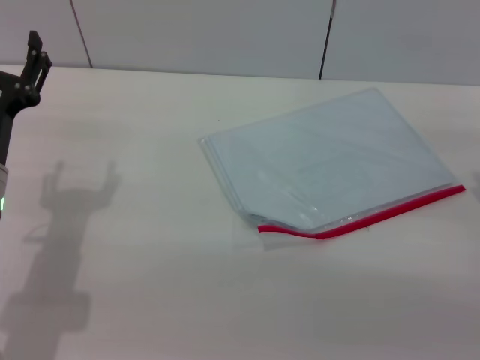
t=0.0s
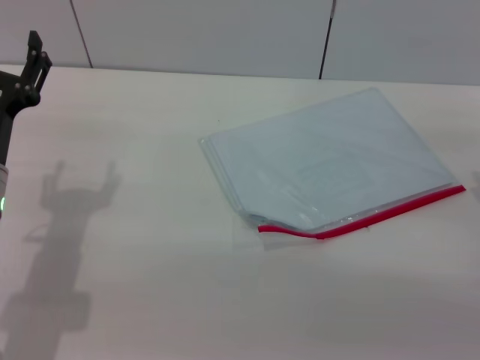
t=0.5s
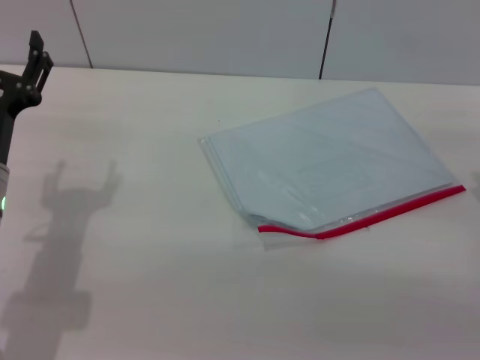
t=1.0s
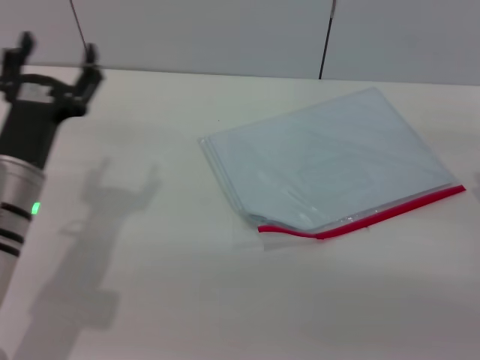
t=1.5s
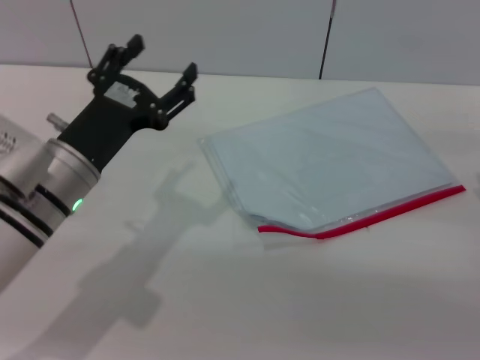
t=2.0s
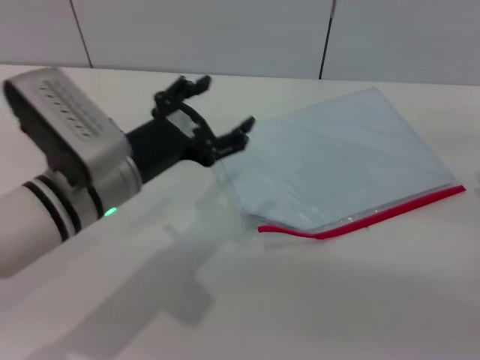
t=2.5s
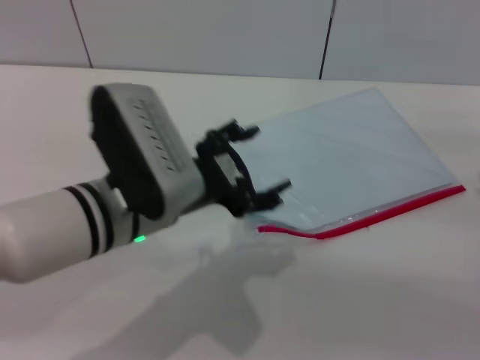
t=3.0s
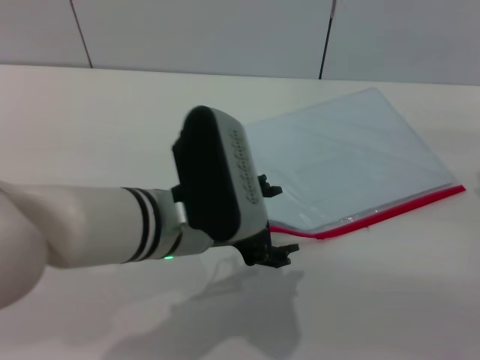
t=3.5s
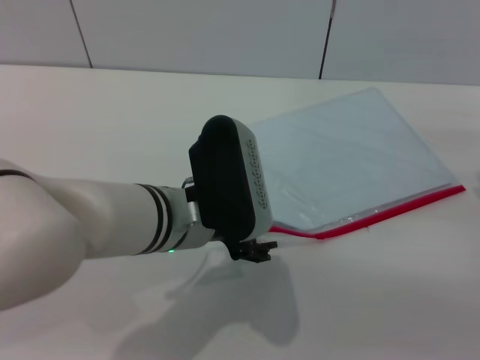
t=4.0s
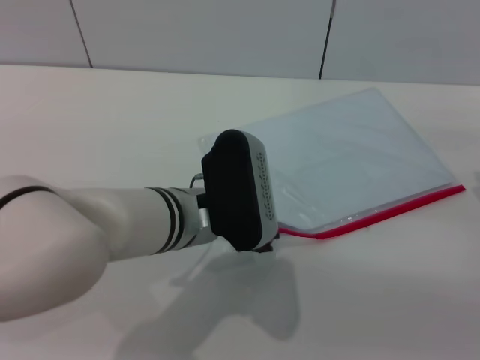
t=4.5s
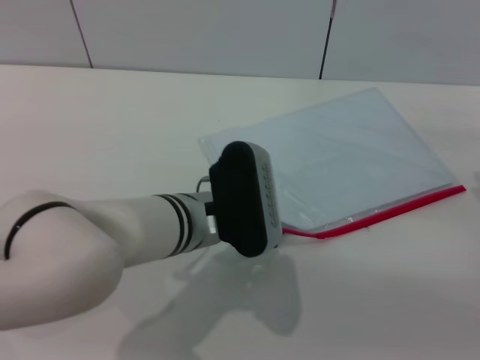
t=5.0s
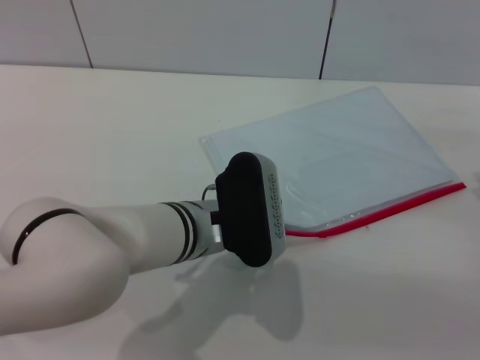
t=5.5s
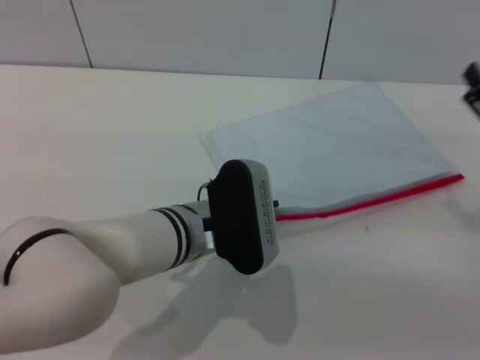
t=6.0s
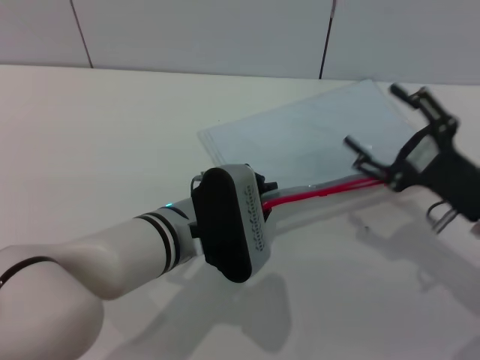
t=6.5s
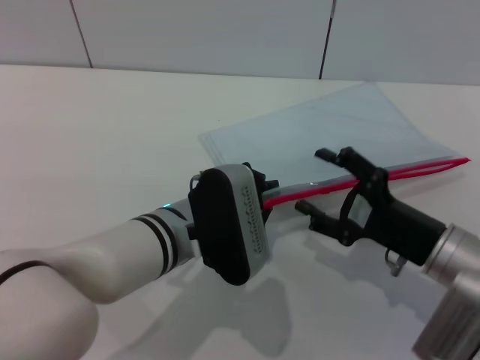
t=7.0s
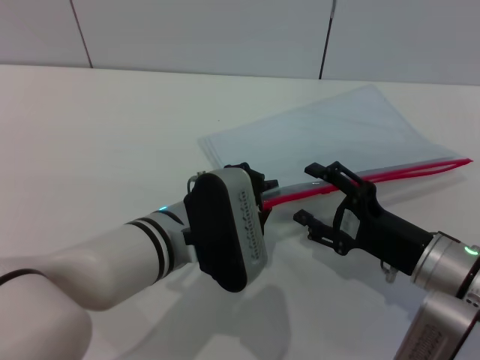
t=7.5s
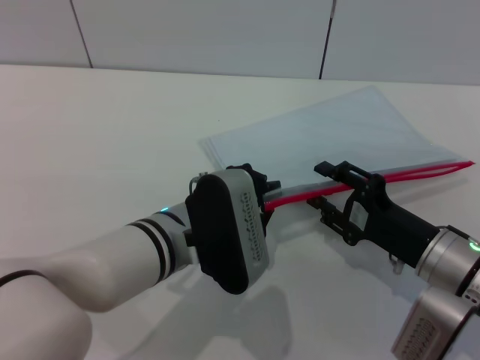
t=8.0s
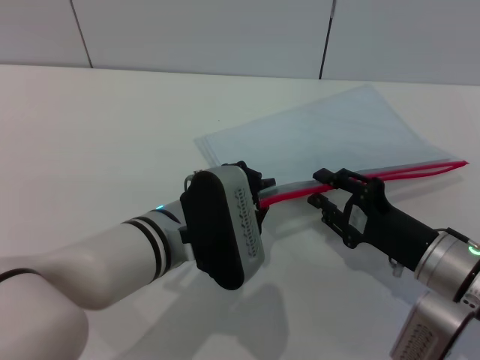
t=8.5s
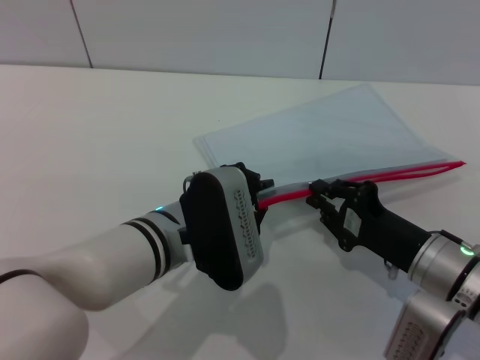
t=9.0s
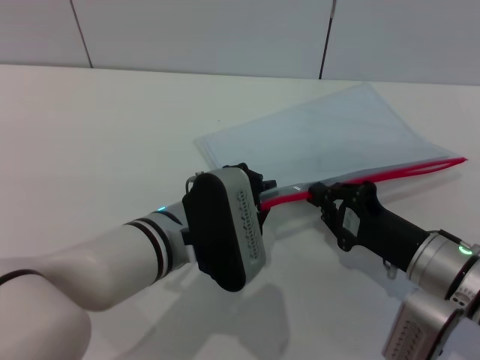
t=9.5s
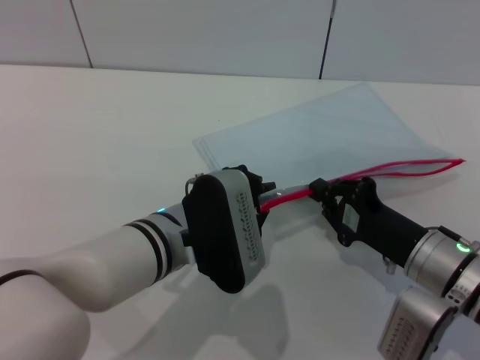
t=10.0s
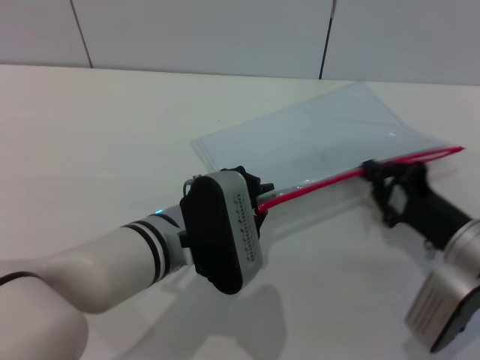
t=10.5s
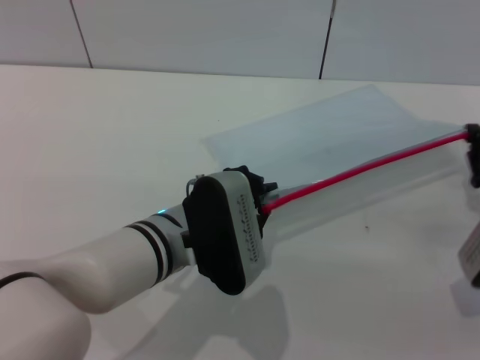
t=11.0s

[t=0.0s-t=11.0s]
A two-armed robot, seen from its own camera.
Step, t=0.0s to t=6.0s: Pick up the transparent plastic bag with the left gripper.
t=0.0s to t=2.0s: The left gripper travels to the right by about 5 cm.
t=2.0s to t=3.5s: The left gripper travels to the right by some 10 cm.
t=3.5s to t=5.5s: The left gripper goes approximately 5 cm downward.
t=5.5s to t=7.5s: The right gripper goes roughly 10 cm to the left. Meanwhile the left gripper closes up.
t=7.5s to t=9.0s: The right gripper closes.
t=9.0s to t=11.0s: The right gripper goes approximately 10 cm to the right.

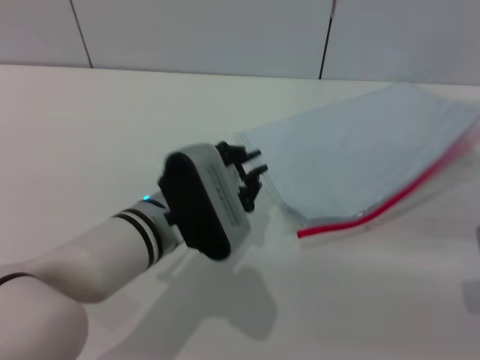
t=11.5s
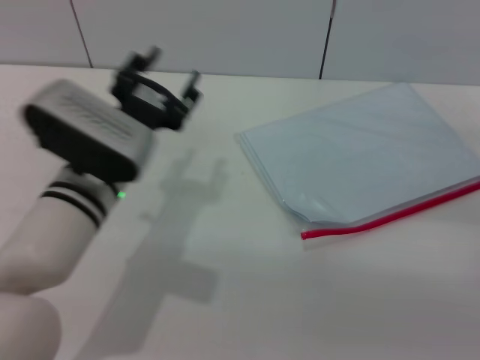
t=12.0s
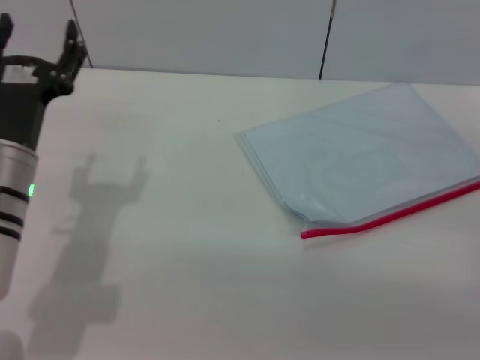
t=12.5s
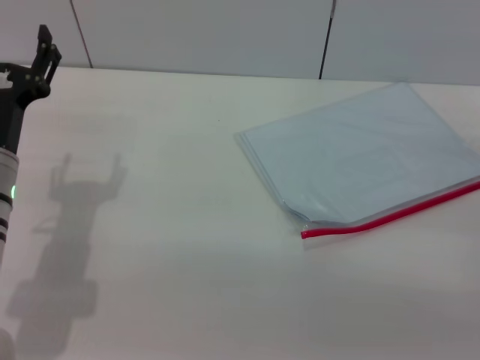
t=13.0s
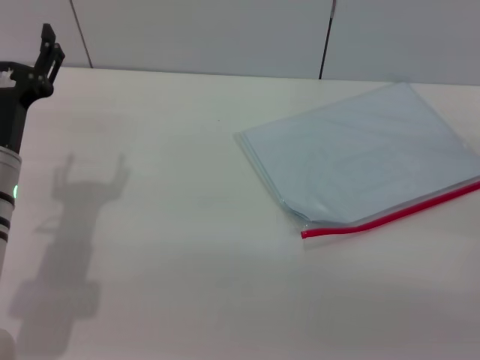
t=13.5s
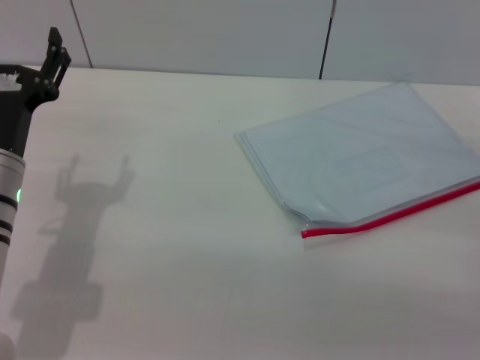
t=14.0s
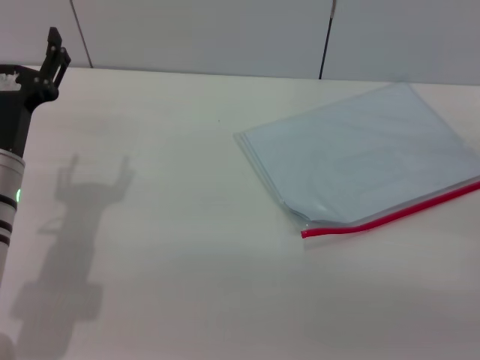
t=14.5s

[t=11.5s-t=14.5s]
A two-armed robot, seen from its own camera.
Step, t=12.0s to t=13.0s: Place the transparent plastic bag.
t=11.5s to t=13.0s: The right gripper opens. The left gripper shifts about 15 cm to the left, and opens.
t=13.0s to t=14.5s: The two grippers keep their place.

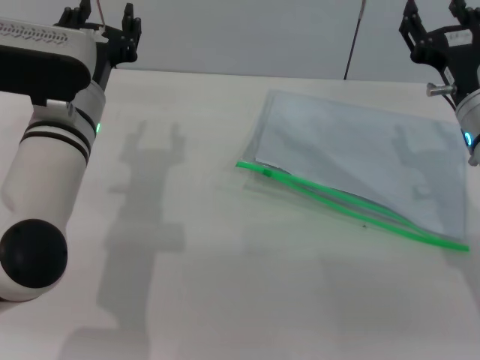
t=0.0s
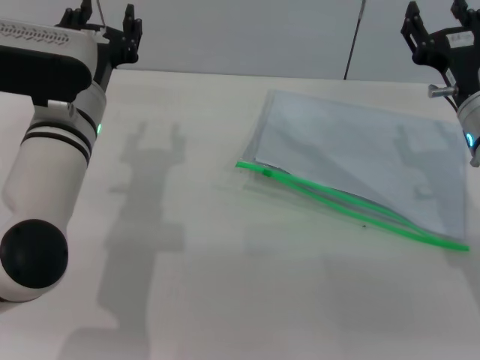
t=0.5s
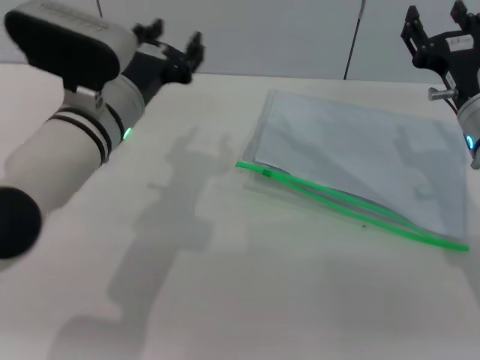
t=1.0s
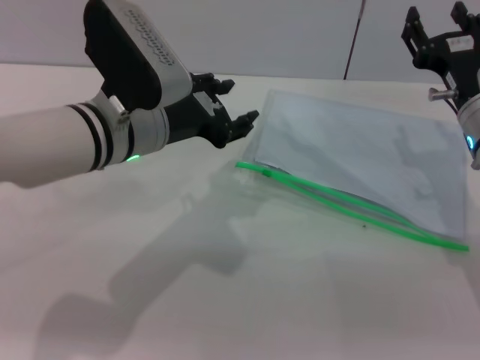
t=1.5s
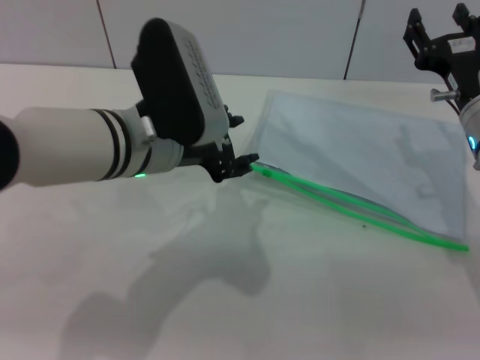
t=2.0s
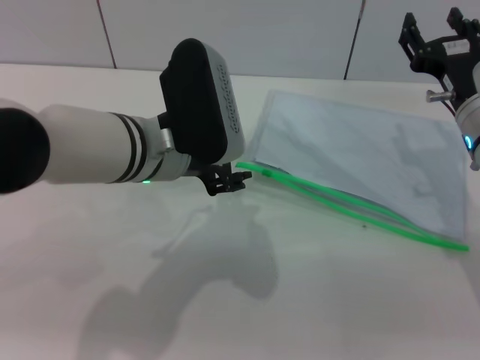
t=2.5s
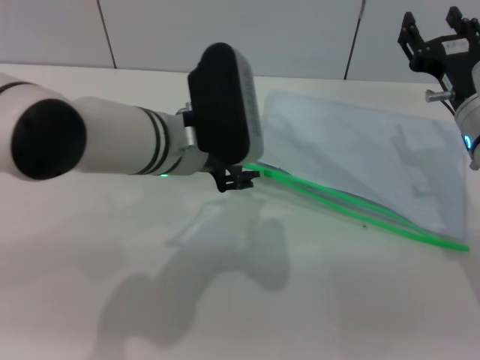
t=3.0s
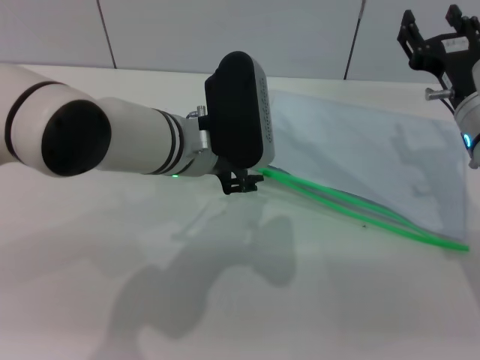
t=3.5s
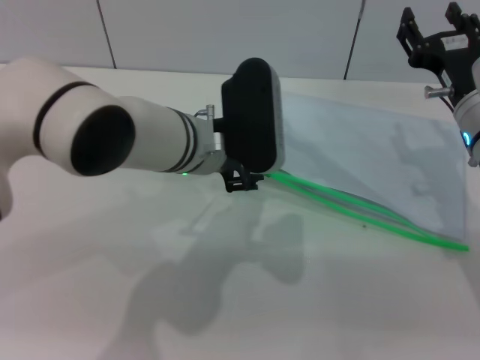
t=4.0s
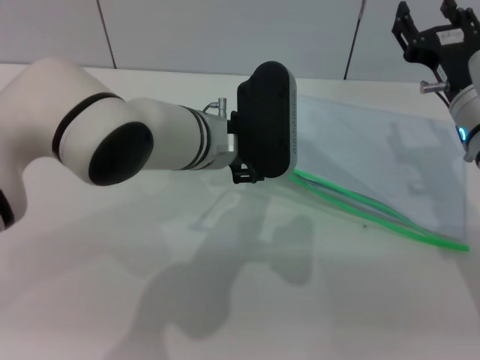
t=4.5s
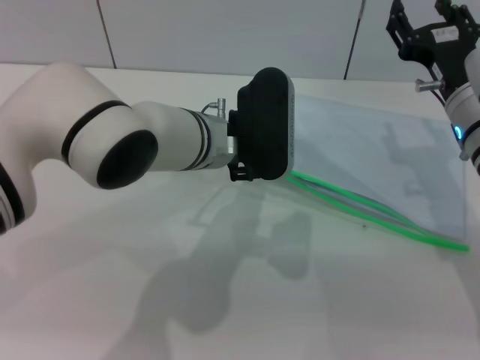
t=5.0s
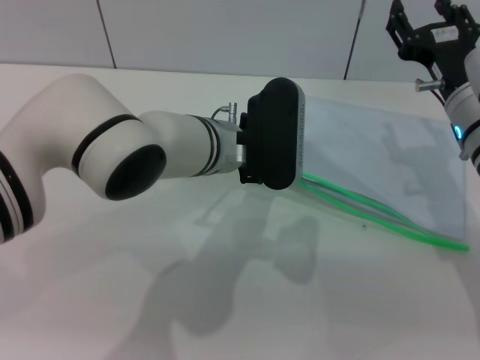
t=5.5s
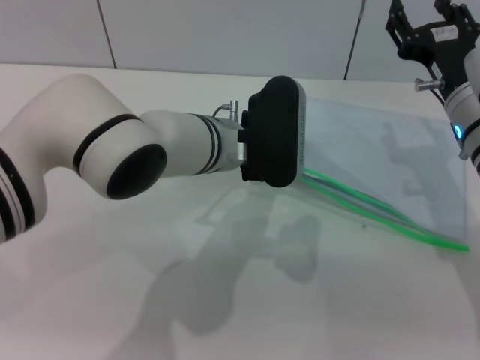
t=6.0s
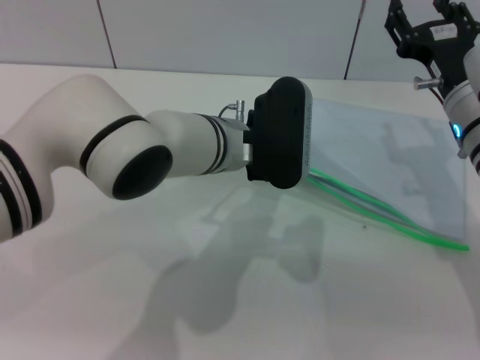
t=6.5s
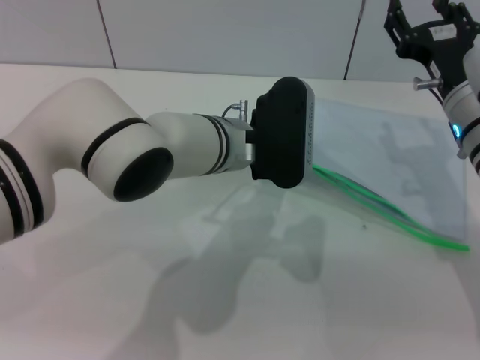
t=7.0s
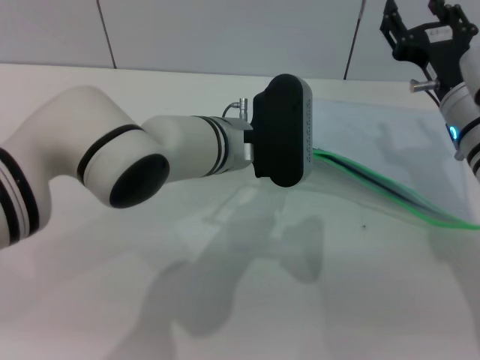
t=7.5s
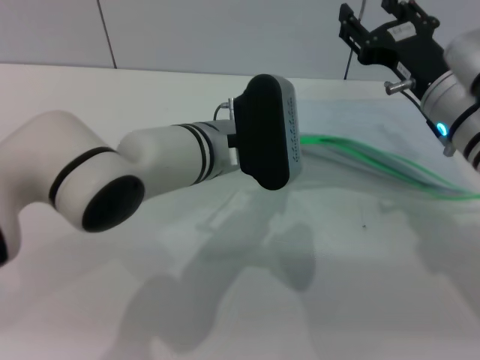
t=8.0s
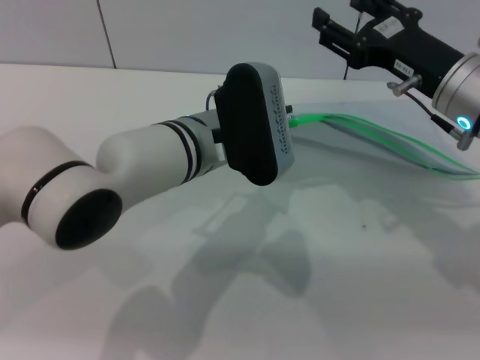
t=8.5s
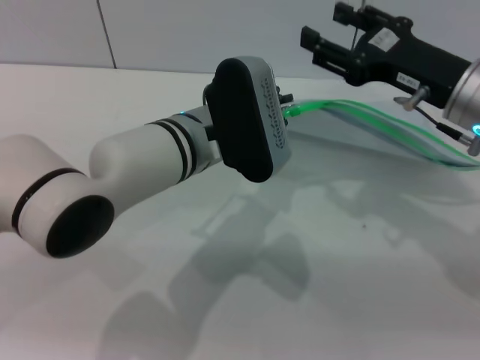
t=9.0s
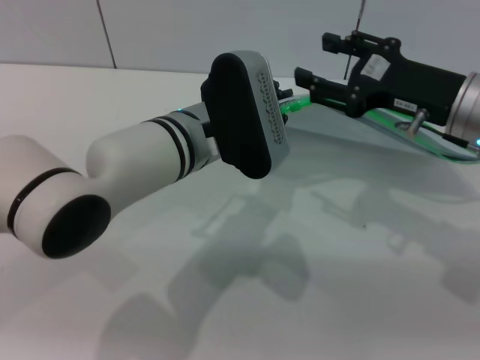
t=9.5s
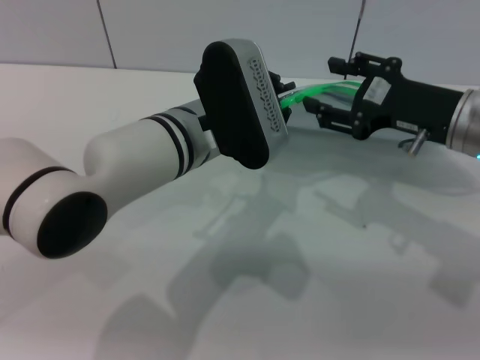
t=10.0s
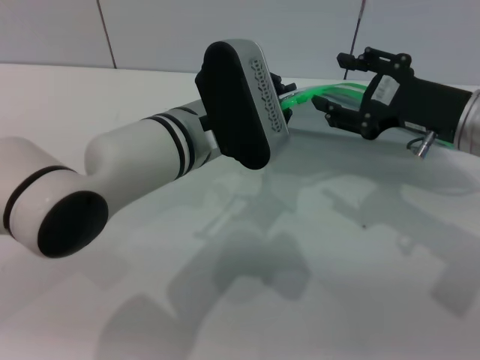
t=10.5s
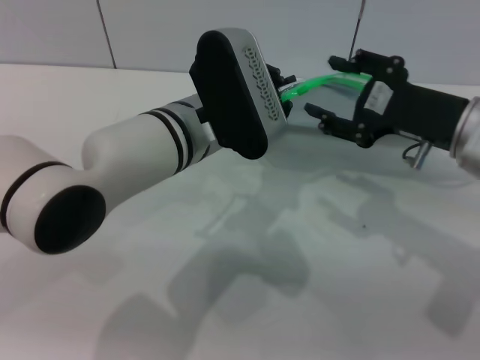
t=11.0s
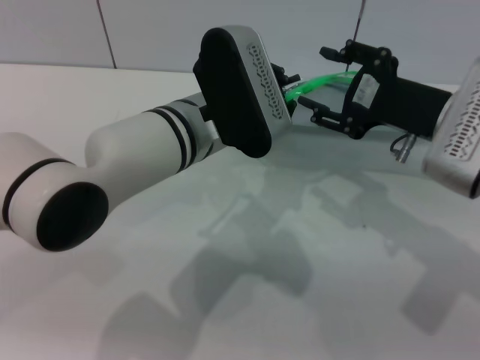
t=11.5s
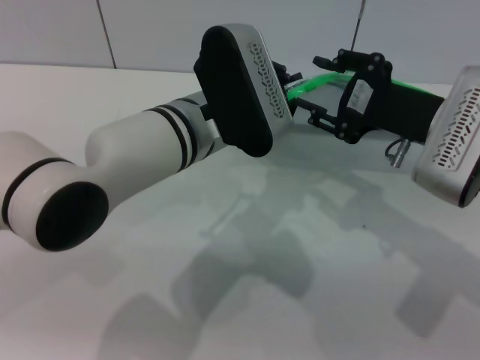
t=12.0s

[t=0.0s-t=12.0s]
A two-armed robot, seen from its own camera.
Step, t=0.0s to t=7.5s: Pick up the transparent plastic bag with the left gripper.
t=0.0s to t=2.0s: The left gripper ends up some 5 cm from where it was.
t=2.0s to t=4.0s: The left gripper changes place by approximately 5 cm.
t=4.0s to t=6.0s: The grippers make only small movements.
t=6.0s to t=8.0s: The left gripper closes.
